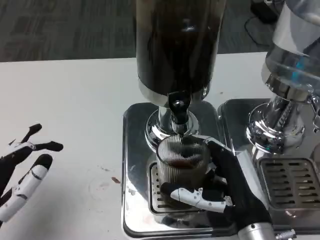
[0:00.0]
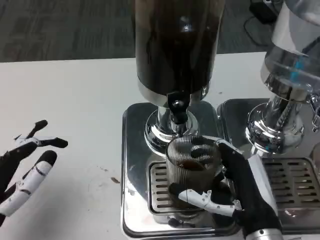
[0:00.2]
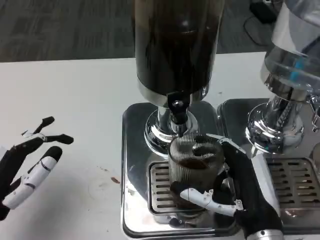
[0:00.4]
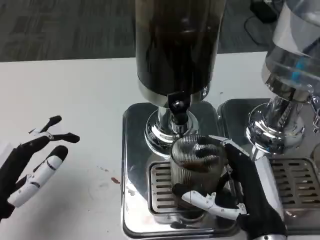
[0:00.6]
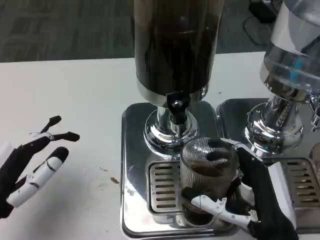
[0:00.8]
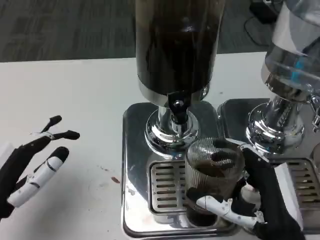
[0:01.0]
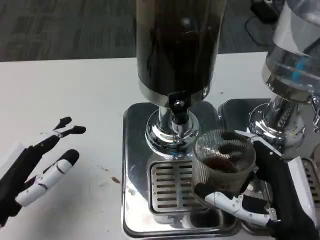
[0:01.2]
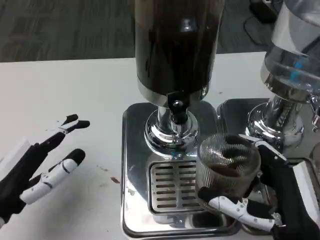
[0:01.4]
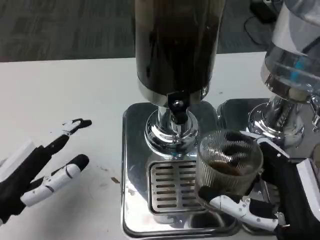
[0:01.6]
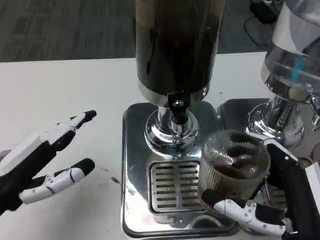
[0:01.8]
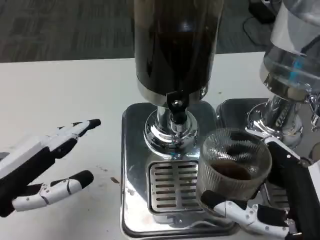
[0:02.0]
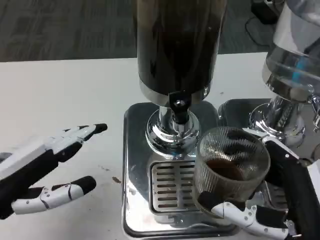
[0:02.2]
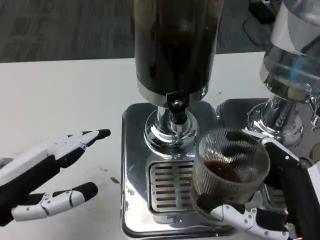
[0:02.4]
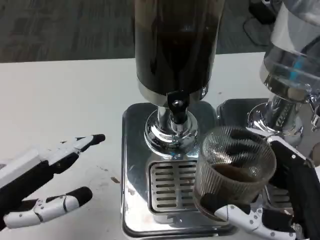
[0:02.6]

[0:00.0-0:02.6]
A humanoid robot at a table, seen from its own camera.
Task of the whole recording: Grasp the cup under the faucet to collect the drink, then remove the cup.
0:00.0 to 0:01.2: The right hand moves roughly 5 cm.
0:01.2 to 0:02.6: The right hand moves about 5 cm, while the left hand heads upward, covering roughly 5 cm.

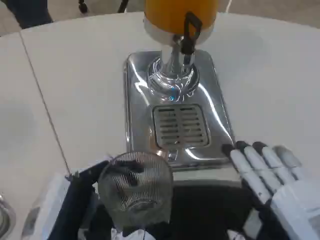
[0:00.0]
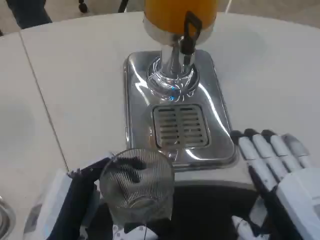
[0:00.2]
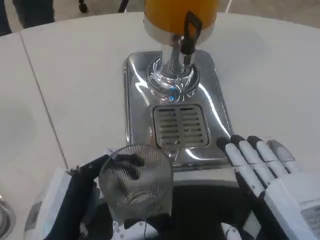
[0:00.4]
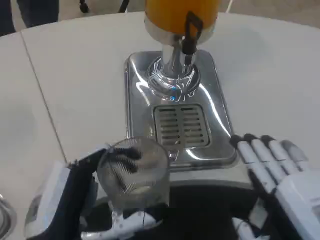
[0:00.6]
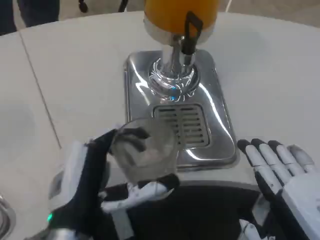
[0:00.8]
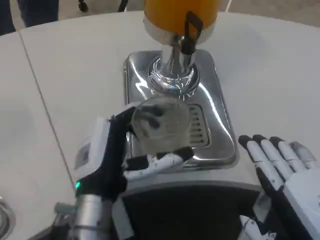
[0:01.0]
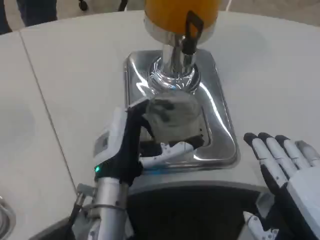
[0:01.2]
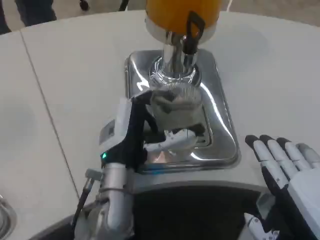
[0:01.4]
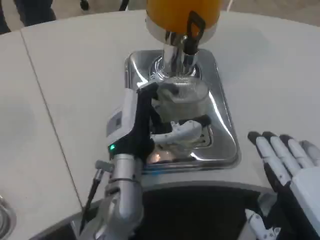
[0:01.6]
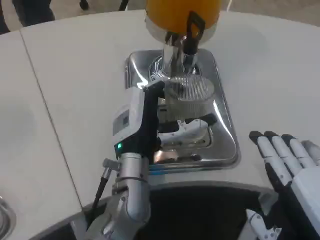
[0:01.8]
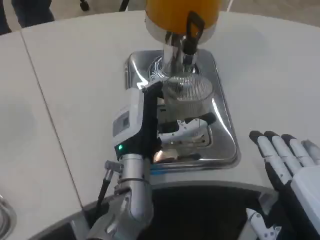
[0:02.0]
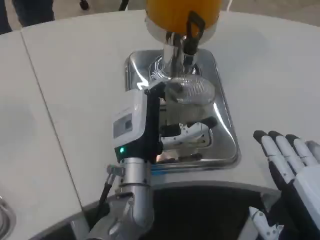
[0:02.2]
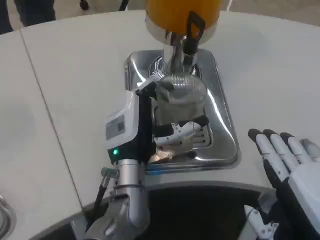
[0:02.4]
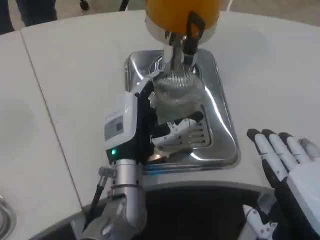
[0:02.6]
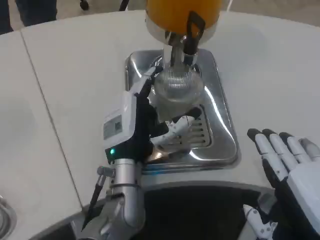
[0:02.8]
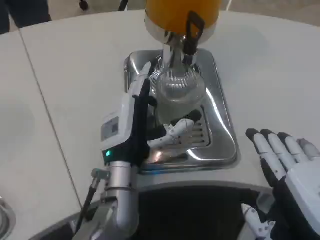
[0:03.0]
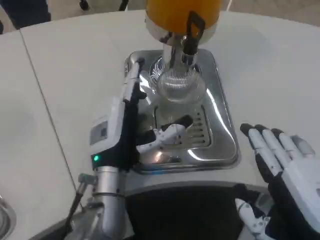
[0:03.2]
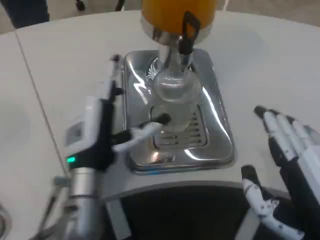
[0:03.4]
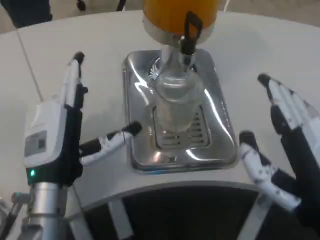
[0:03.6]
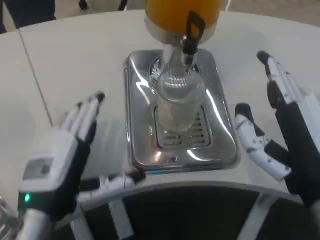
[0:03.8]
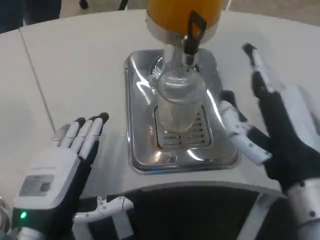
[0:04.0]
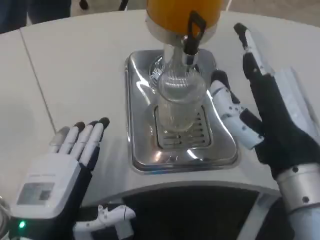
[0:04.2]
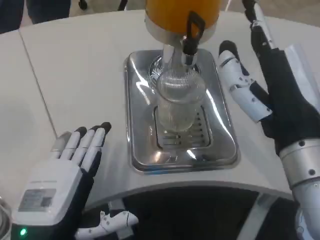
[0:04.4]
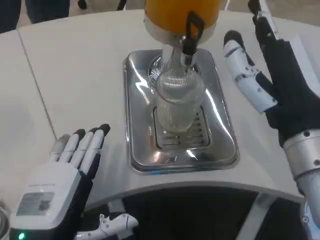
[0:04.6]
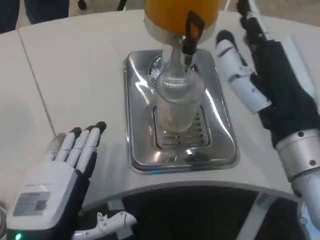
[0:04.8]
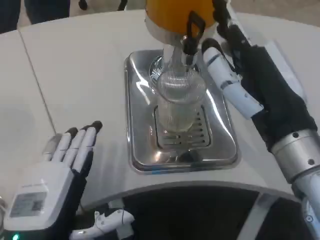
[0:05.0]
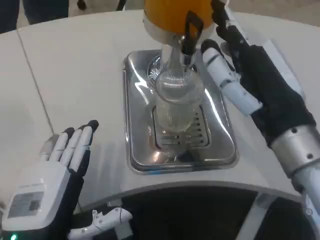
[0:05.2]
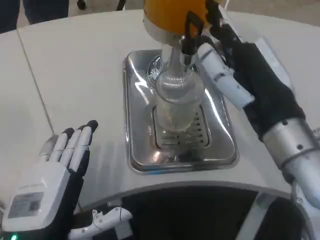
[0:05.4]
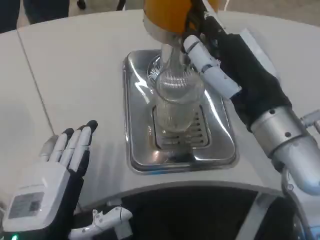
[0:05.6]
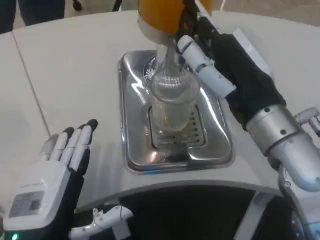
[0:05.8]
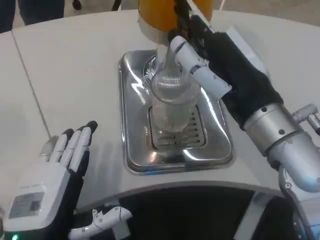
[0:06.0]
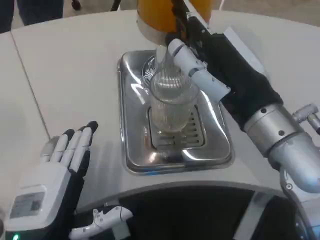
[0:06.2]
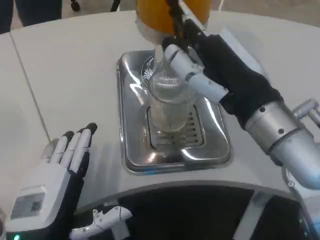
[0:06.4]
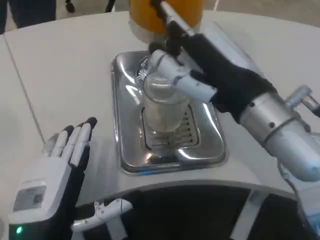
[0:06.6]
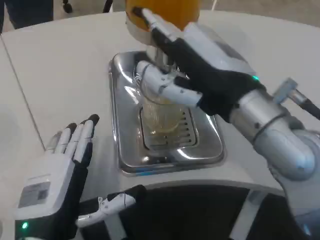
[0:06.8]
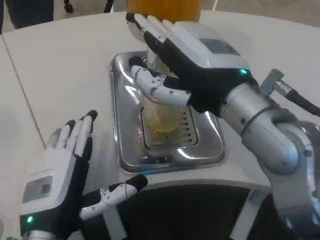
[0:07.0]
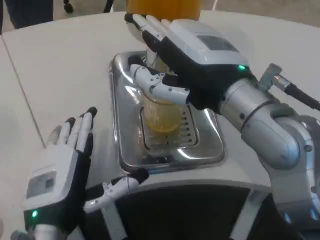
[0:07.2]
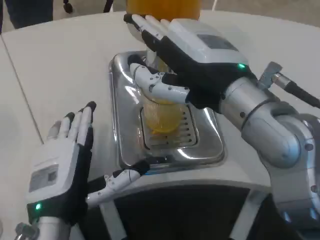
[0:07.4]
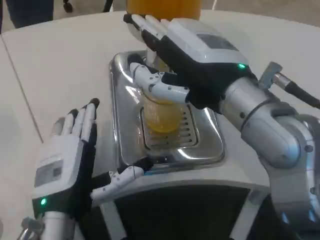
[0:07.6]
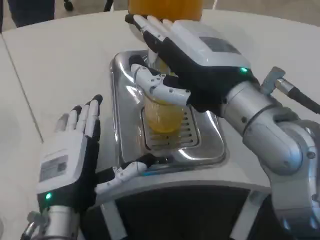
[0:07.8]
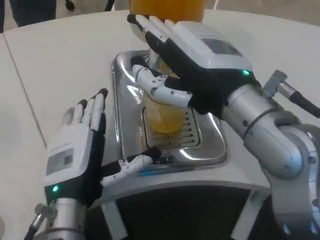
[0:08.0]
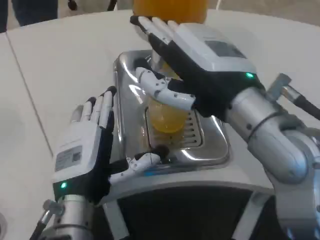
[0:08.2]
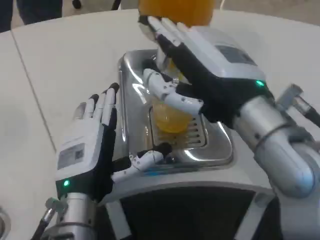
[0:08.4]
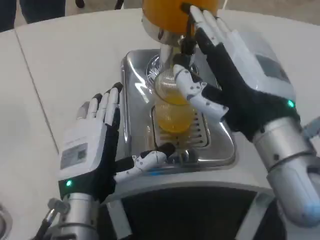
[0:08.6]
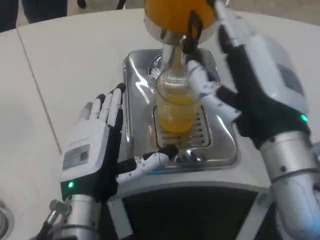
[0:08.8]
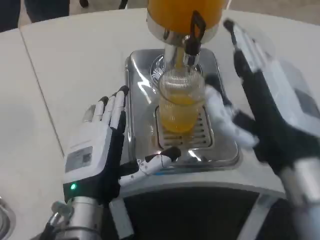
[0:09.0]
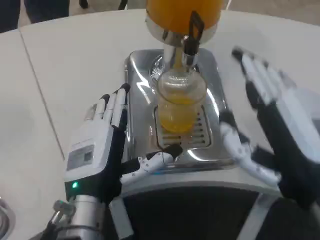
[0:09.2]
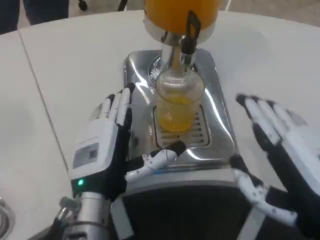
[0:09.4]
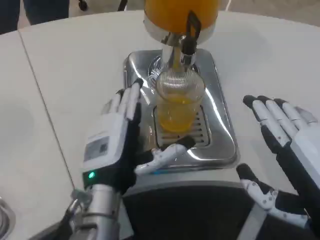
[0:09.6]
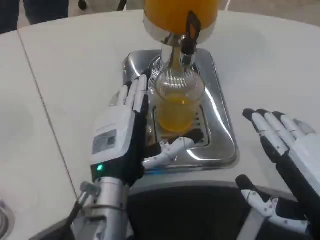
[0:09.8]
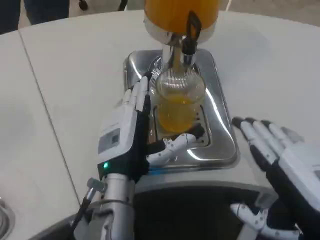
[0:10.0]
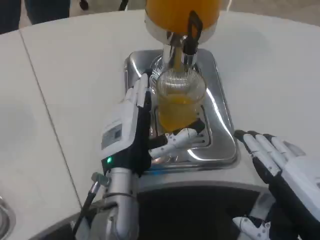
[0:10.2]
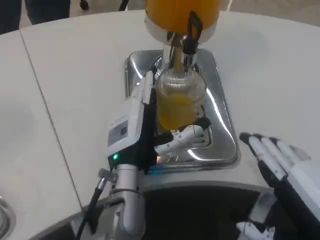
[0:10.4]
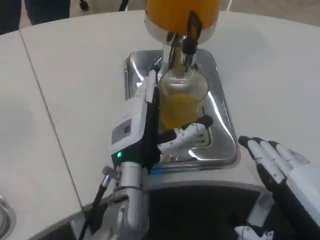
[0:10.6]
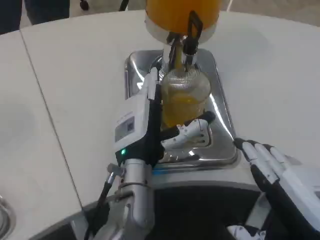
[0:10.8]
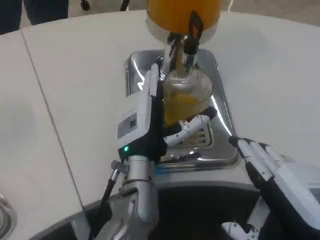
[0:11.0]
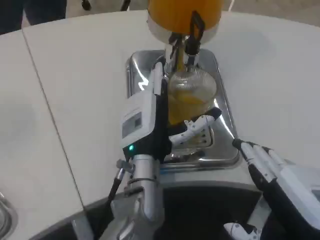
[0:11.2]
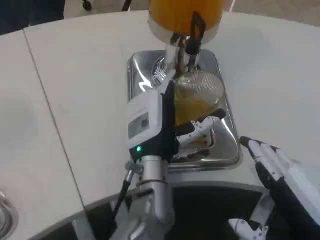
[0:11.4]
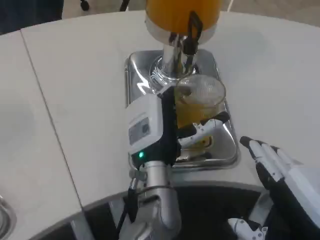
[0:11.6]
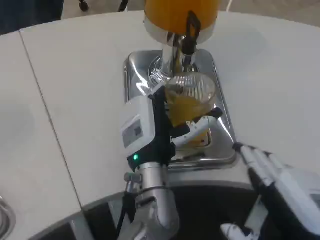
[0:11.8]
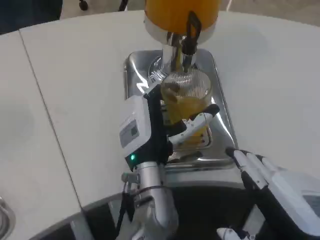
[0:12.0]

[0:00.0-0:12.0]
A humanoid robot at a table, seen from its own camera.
Task of the whole recording: Grasp the cup under the faucet to collect the drink, then remove the cup.
0:00.0 to 0:01.6: The left hand is displaced forward and to the right by some 20 cm.
0:01.6 to 0:03.0: The hands make only small movements.
0:03.0 to 0:04.4: The left hand heads backward and to the left, covering about 20 cm. The right hand is displaced forward and upward by about 10 cm.
0:06.0 to 0:07.6: The left hand shifts roughly 5 cm forward.
0:07.6 to 0:09.0: The right hand is displaced downward and backward by about 10 cm.
0:09.0 to 0:10.4: The left hand shifts some 10 cm forward and to the right; the right hand moves backward and to the right, about 10 cm.
0:10.4 to 0:12.0: There are only small adjustments of the hands.

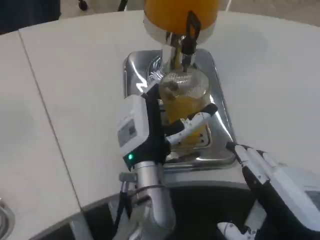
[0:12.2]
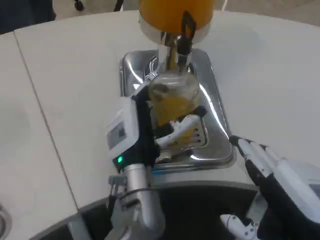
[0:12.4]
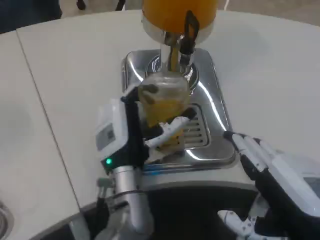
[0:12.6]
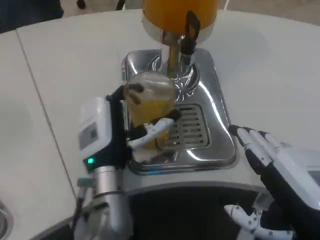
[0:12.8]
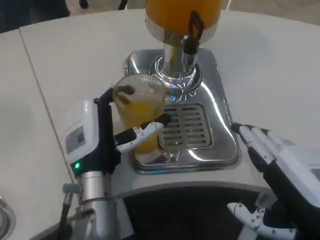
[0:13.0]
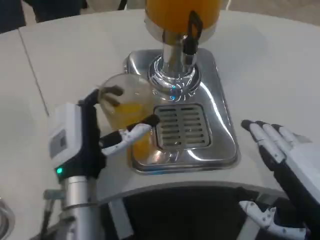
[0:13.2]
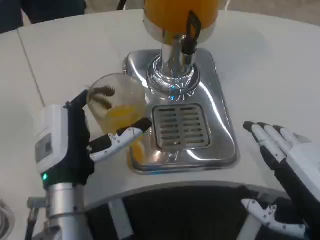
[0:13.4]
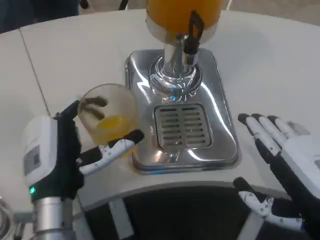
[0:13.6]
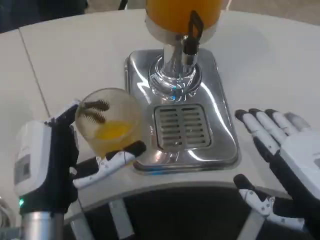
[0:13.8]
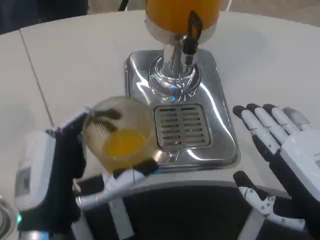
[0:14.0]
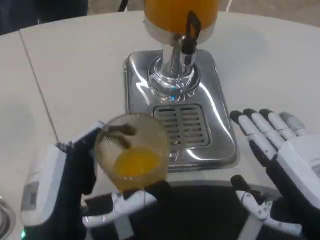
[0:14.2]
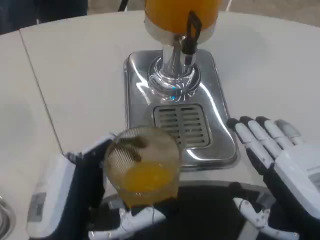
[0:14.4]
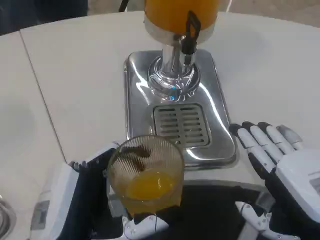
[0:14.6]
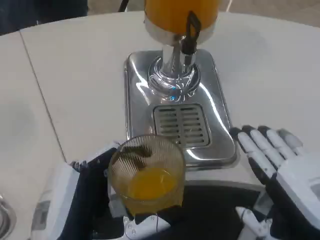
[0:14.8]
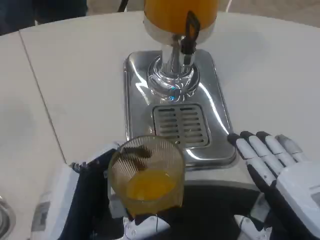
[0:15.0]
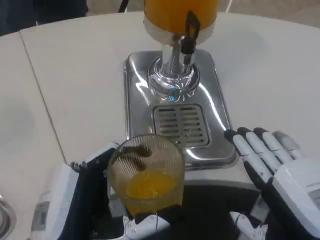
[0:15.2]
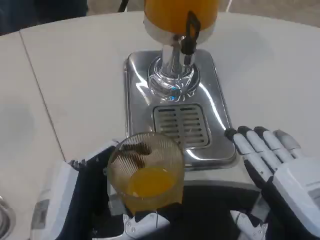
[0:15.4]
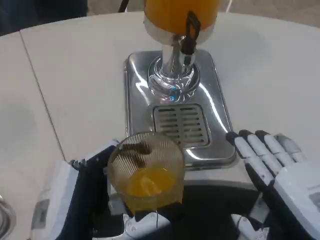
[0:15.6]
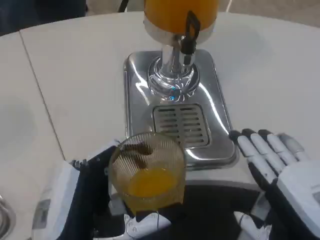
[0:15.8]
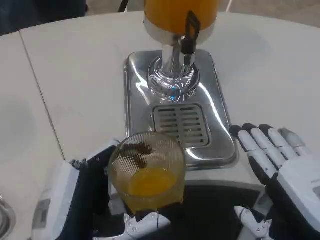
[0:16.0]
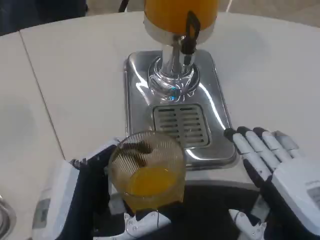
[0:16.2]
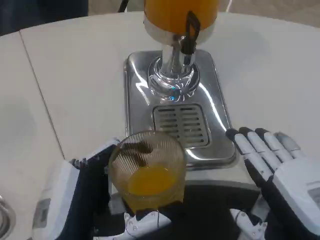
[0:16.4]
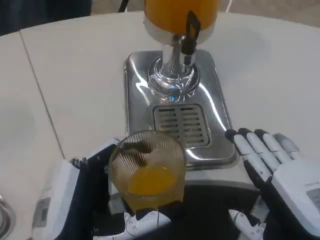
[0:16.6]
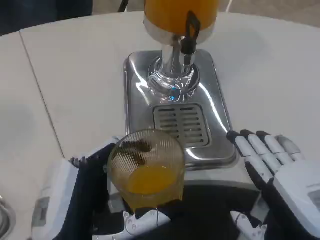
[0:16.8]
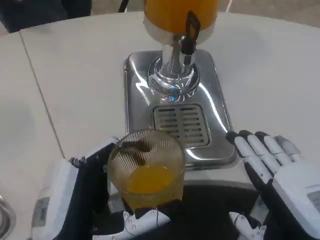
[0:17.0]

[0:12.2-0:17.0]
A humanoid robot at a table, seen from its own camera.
Task of the whole recording: Grasp the cup under the faucet to collect the drink, then remove the cup.
0:12.2 to 0:13.8: The left hand goes about 15 cm to the left and backward.
0:13.8 to 0:15.4: The left hand heads backward, covering roughly 5 cm.
0:15.4 to 0:17.0: Neither hand changes place.
